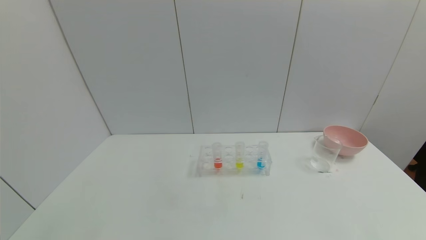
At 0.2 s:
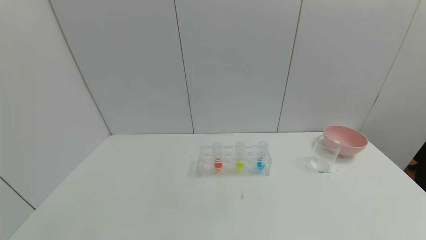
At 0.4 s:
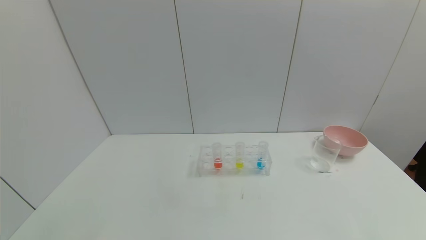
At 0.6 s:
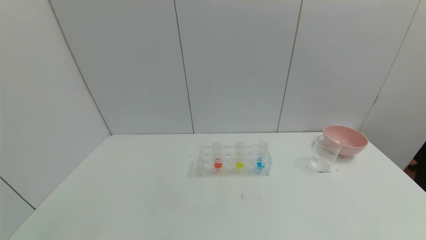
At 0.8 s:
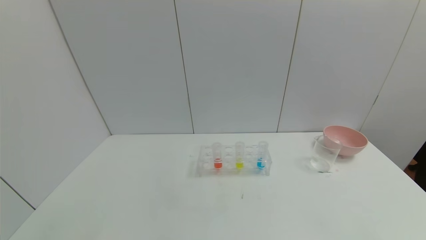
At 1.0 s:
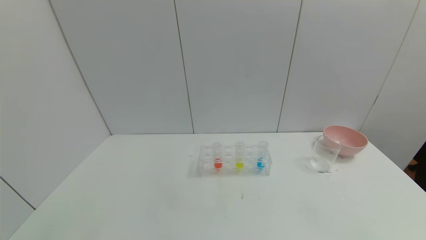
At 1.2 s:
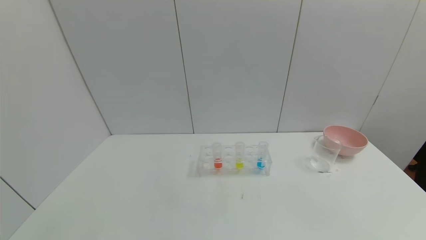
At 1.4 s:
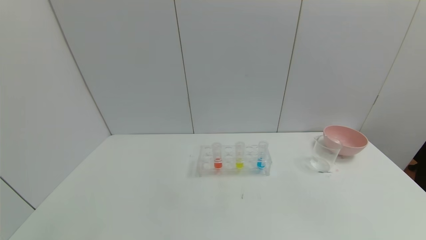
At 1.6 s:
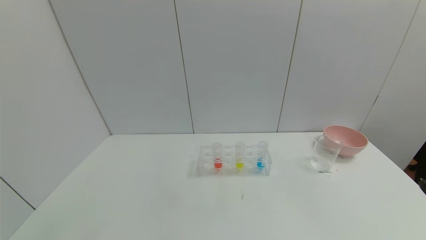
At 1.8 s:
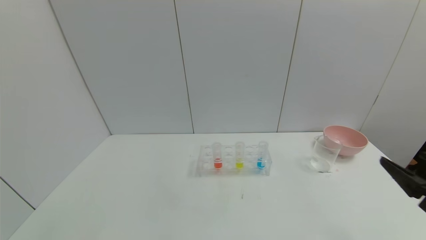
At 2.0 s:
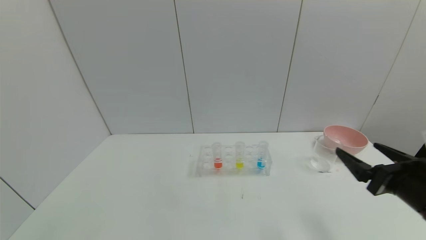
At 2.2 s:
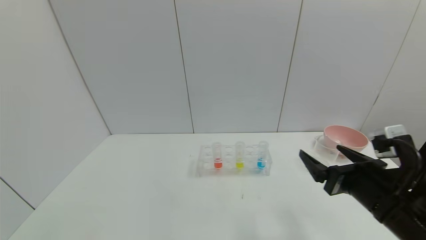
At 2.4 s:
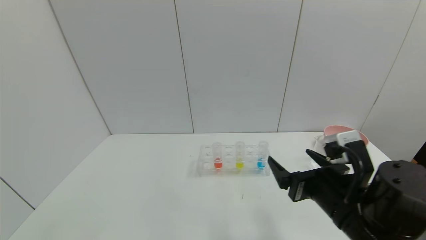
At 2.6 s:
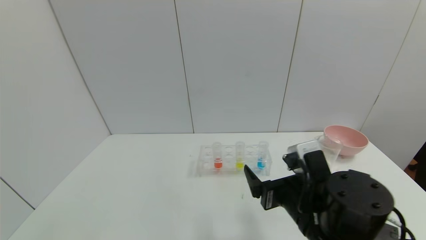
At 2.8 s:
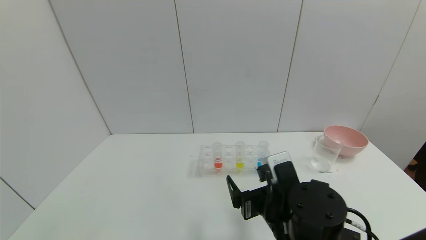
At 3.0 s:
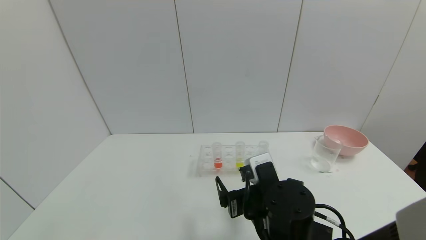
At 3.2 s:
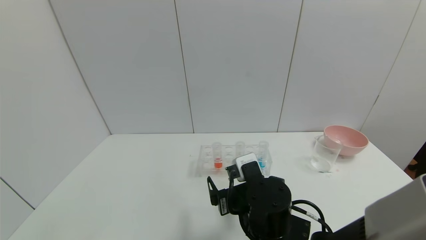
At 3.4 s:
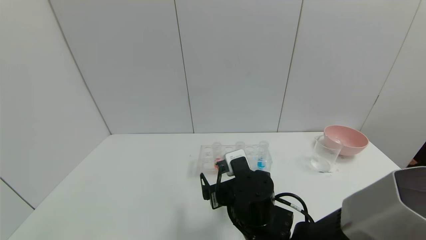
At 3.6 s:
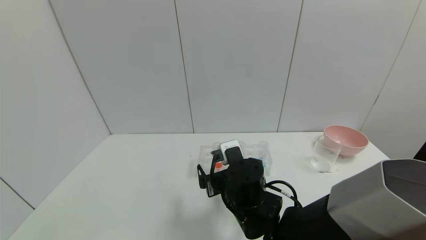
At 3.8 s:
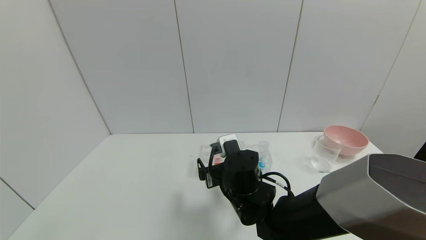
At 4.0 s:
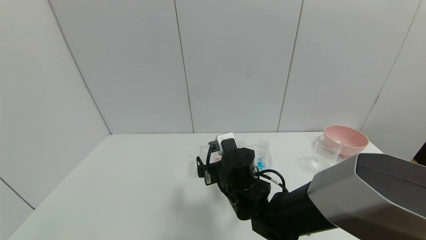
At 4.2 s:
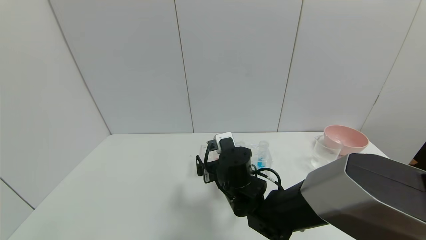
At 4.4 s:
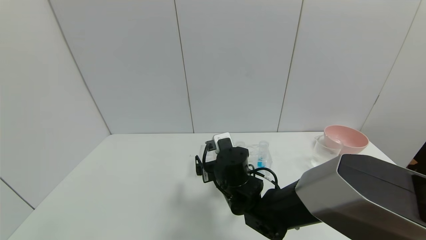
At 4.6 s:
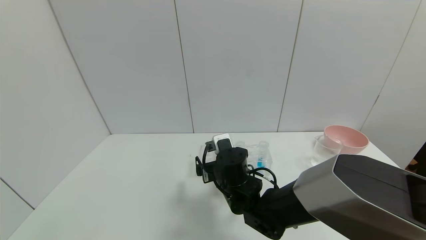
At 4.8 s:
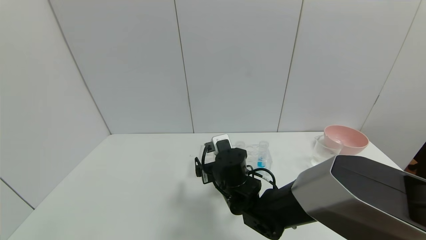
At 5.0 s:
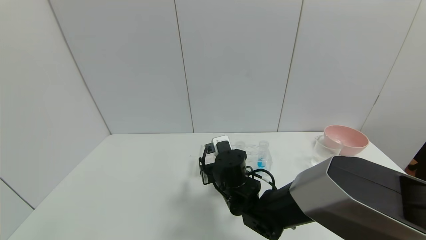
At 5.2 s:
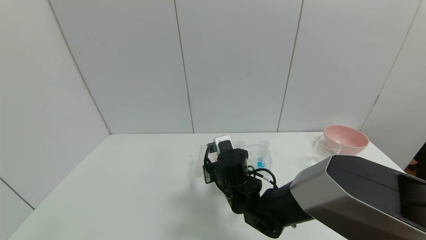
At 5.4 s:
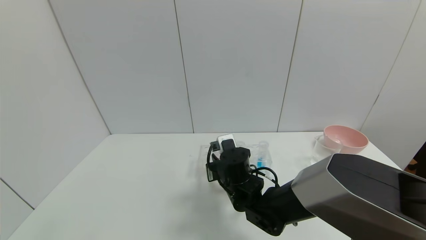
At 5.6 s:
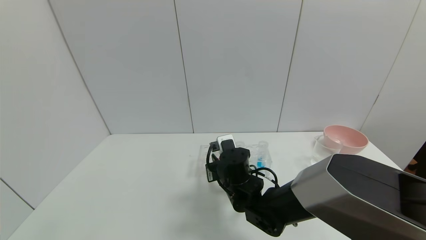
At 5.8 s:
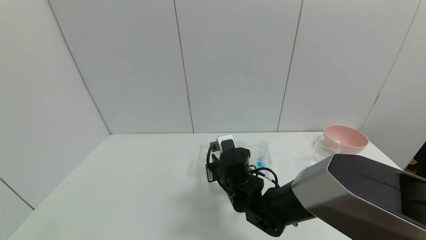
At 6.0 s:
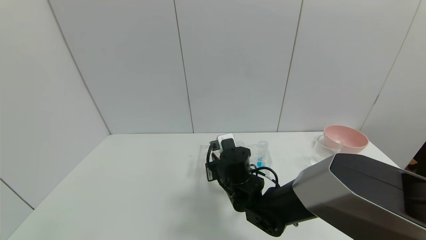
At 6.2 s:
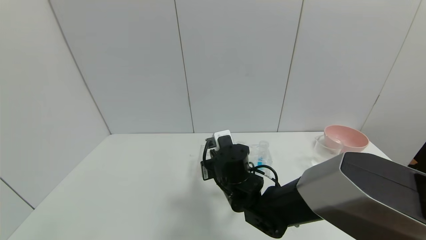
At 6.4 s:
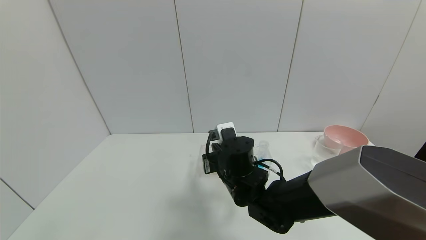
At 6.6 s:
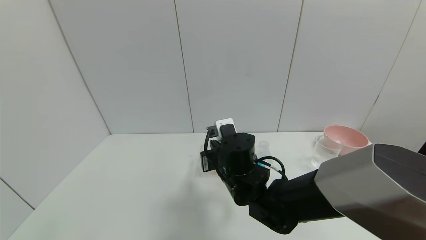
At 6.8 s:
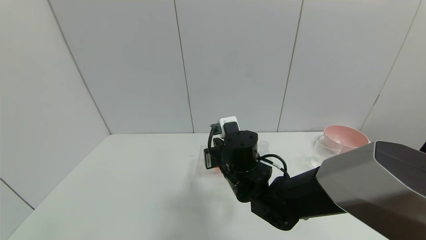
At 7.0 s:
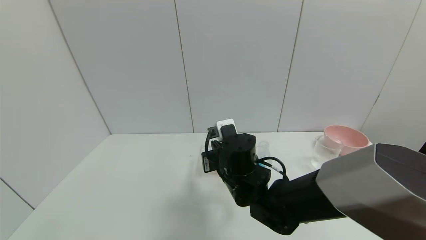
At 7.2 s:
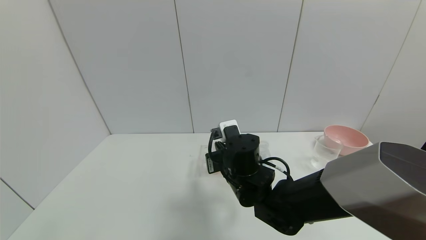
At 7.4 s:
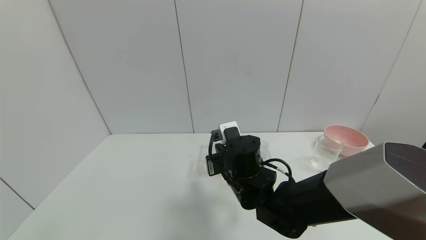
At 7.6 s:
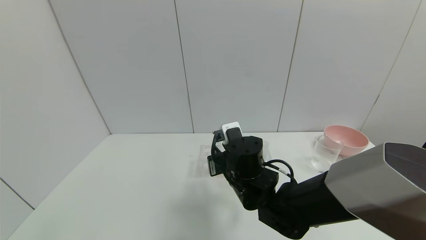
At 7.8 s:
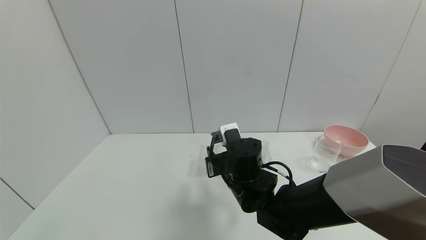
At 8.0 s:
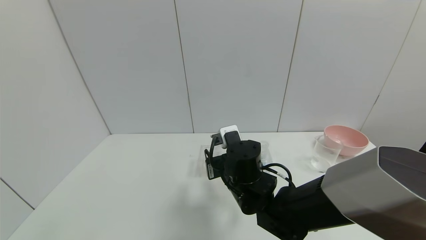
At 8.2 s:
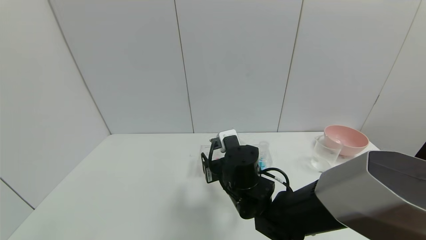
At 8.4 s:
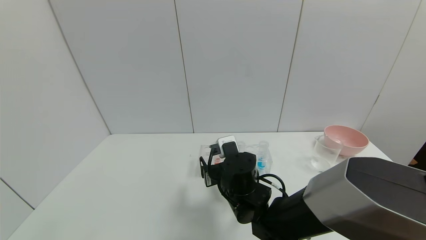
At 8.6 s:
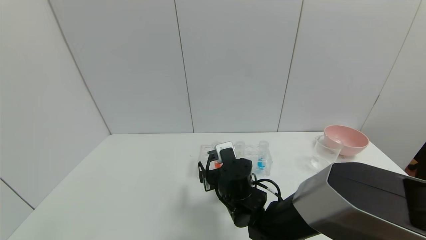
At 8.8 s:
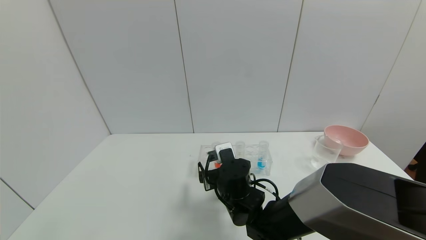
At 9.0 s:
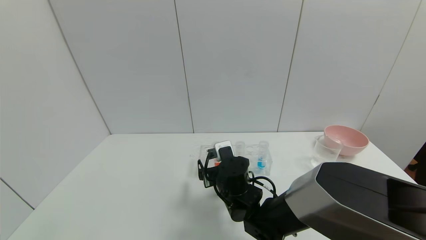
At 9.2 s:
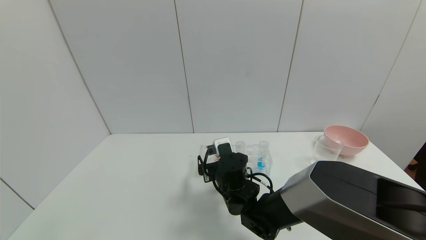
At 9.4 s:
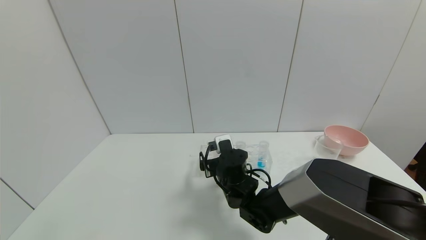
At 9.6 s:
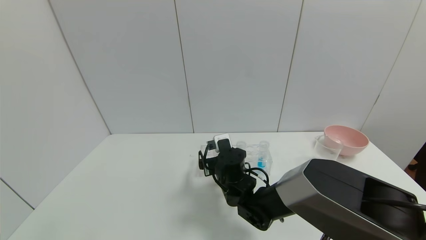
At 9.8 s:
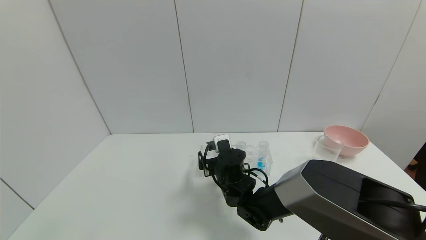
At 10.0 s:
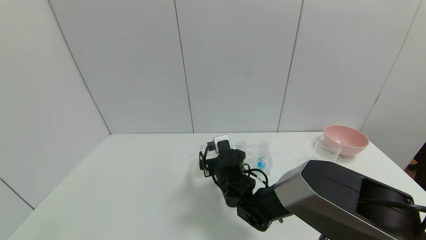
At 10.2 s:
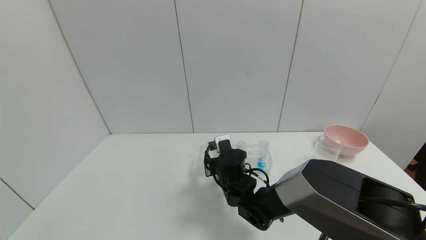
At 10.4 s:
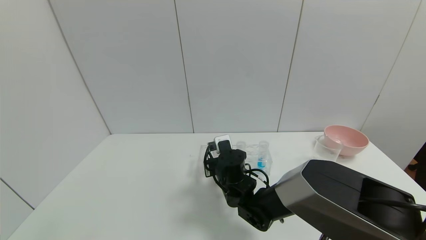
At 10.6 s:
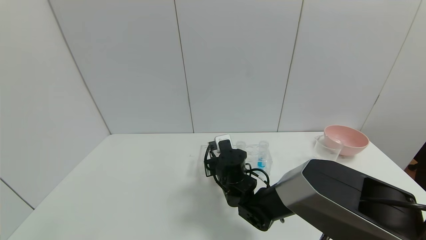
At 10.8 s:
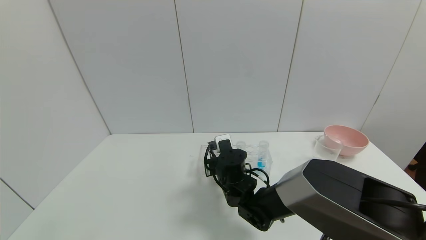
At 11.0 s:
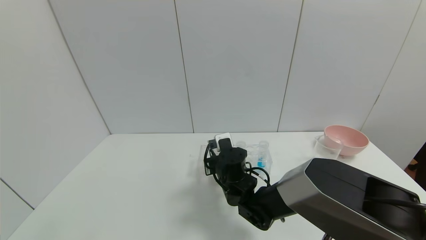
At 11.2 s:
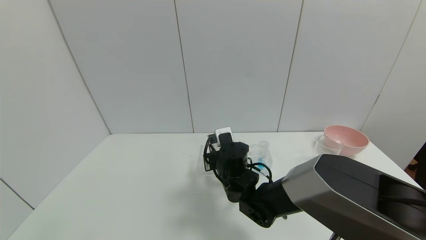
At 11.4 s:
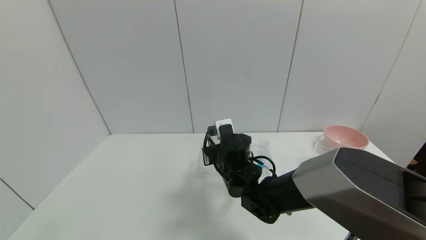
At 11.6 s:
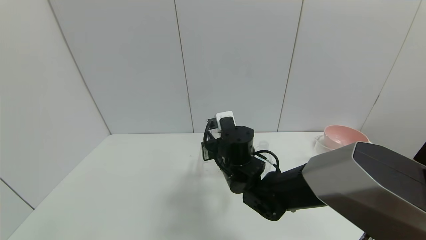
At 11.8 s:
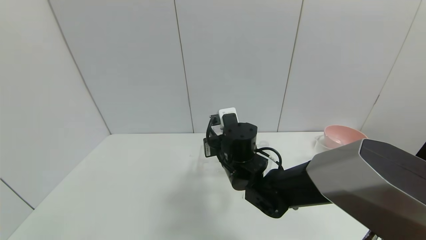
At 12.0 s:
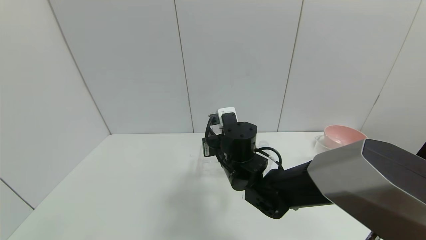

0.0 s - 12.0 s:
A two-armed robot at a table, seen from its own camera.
Task of the whole recording: pick up the test tube with red pigment and the test tube with blue pigment by grippers and pour them into the container.
Step, 0.0 s - 10.8 s: Grasp the red reagent with the right gripper.
1.6 s - 3.0 s: The right gripper heads to the left and forward, covering roughly 30 cm.
3.0 s - 4.4 s: The right gripper is displaced forward and to the left by about 10 cm.
4.4 s - 6.0 s: The right gripper closes its fingers.
6.0 s - 7.6 s: The grippers make only small movements.
7.6 s - 9.0 s: The right gripper shifts about 5 cm downward, and opens its fingers.
9.0 s - 10.4 s: The right gripper closes its fingers.
10.4 s - 12.0 s: The right gripper shifts some 10 cm upward.

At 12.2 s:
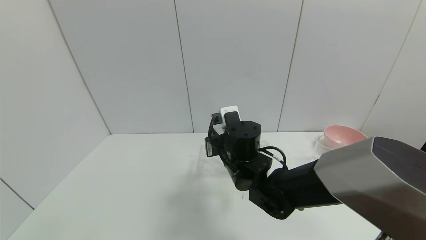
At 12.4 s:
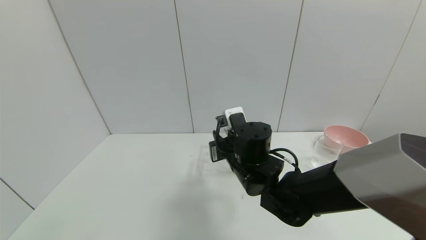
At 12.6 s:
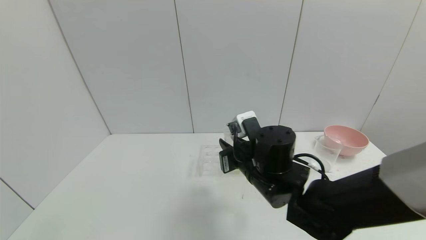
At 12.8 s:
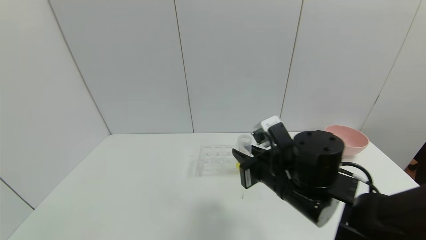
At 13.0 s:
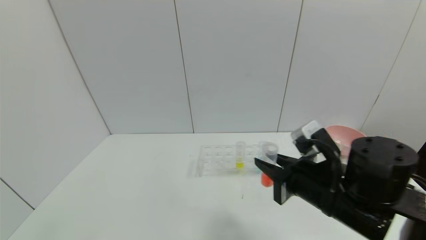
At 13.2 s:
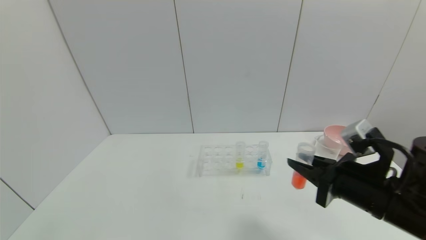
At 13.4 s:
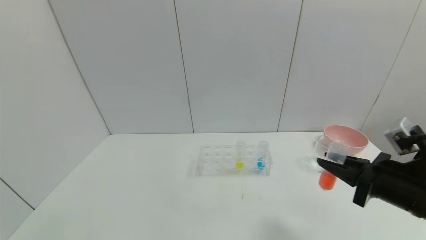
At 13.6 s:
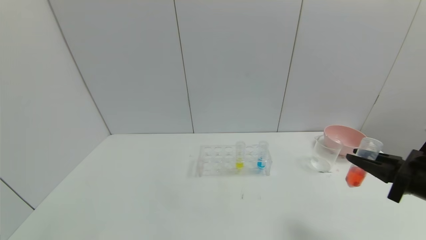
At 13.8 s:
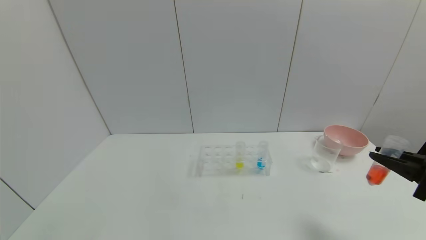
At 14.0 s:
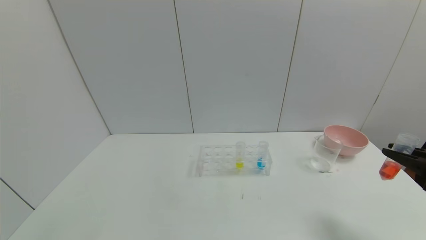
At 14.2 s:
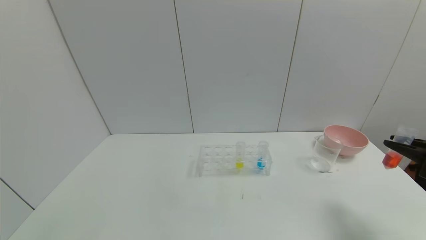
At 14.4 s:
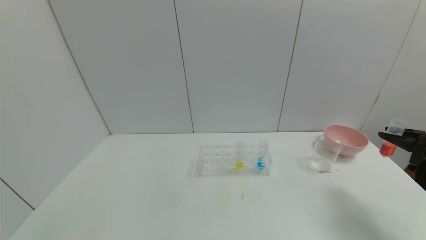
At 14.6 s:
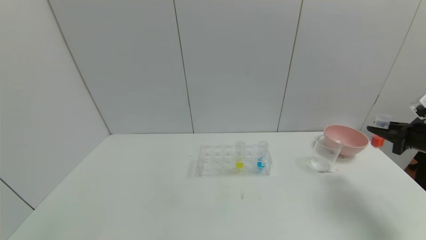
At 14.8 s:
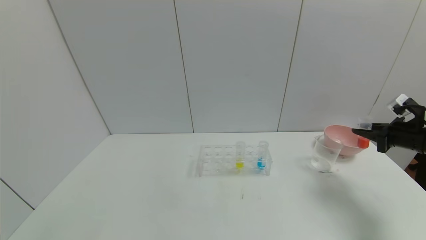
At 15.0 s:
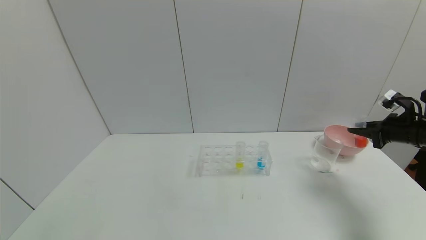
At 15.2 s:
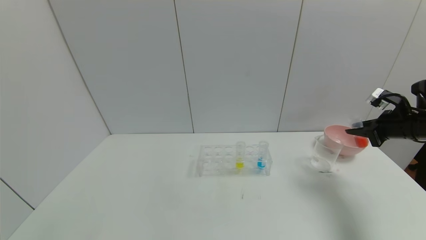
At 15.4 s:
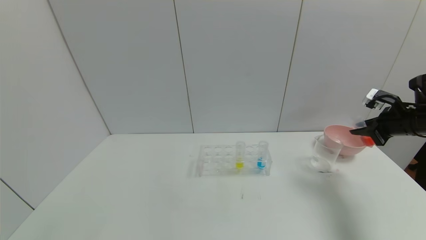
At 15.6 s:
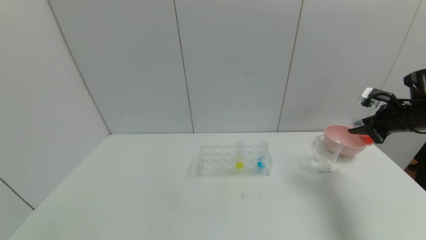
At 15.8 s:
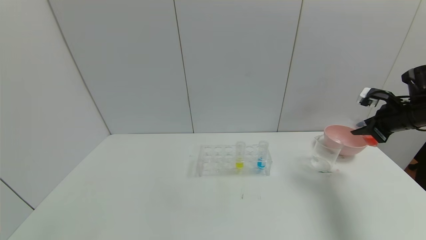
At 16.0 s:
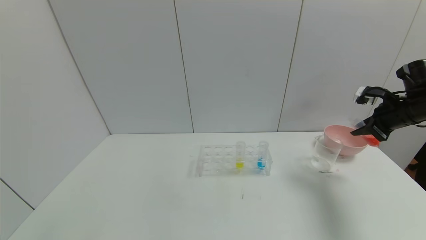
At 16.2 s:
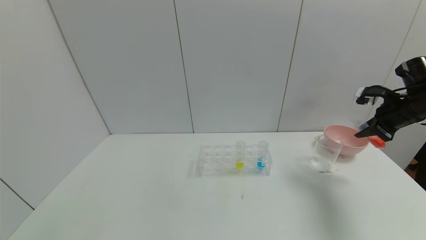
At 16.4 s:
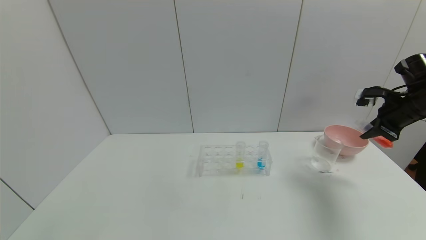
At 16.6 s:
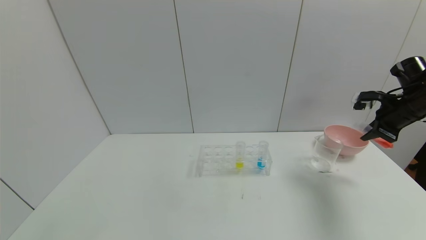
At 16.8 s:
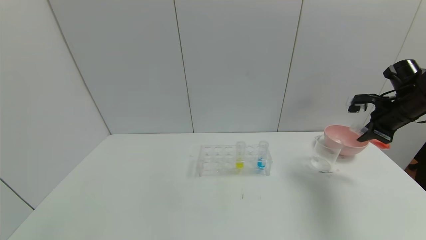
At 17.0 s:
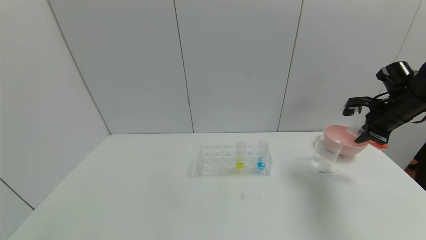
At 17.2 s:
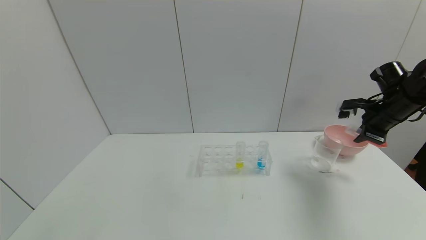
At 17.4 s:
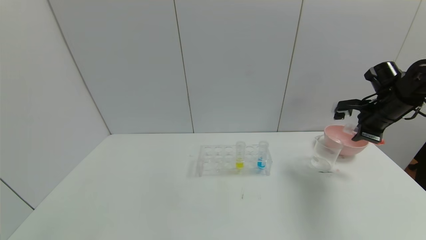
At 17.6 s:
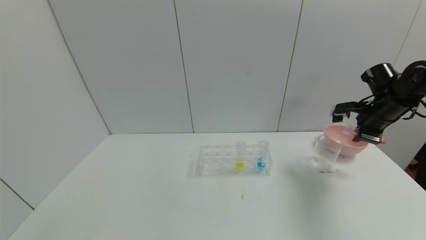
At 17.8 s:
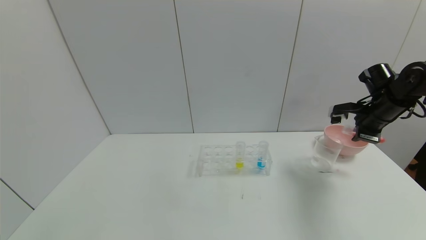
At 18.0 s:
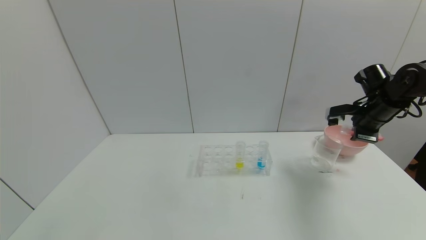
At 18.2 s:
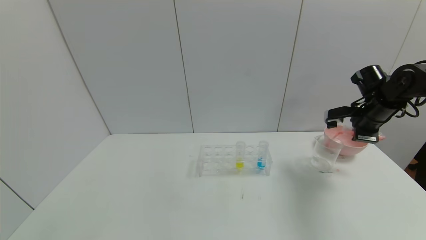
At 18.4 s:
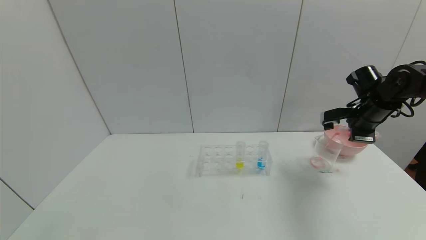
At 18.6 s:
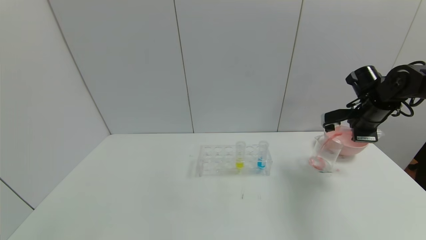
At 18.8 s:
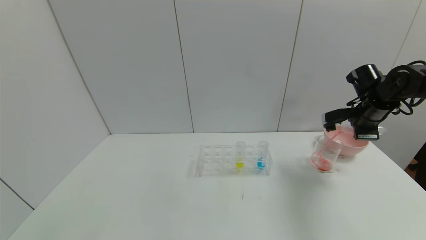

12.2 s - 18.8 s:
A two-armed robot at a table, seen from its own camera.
Task of the whole recording: pick up the test tube with red pigment and the test tube with blue pigment by grippers and pour them into the container.
12.2 s - 13.8 s: The right gripper moves to the right and backward, some 40 cm.
13.8 s - 15.4 s: The right gripper travels forward by about 20 cm.
15.4 s - 17.2 s: The right gripper shifts by some 5 cm.
